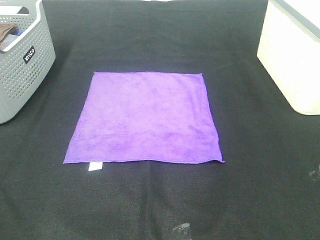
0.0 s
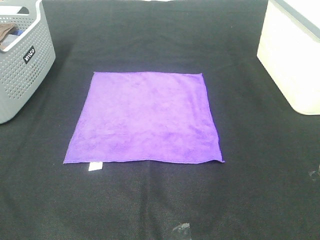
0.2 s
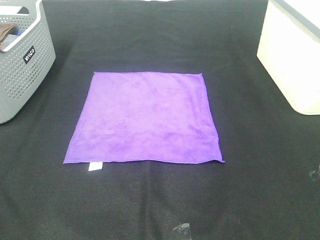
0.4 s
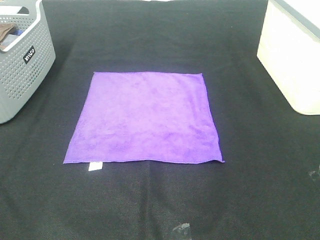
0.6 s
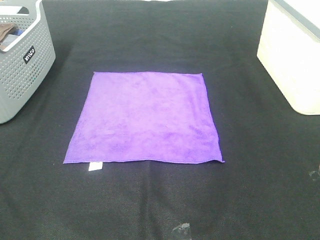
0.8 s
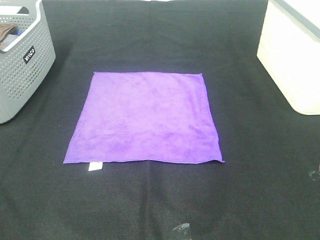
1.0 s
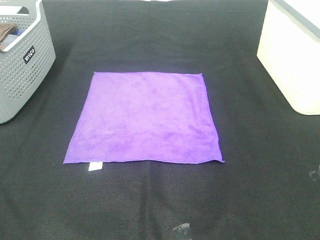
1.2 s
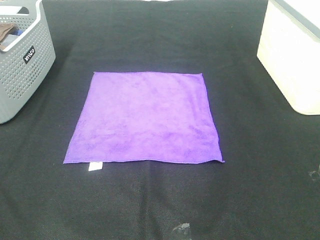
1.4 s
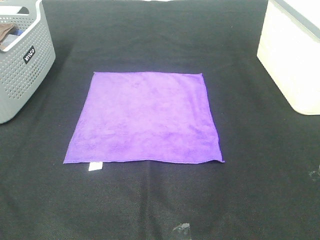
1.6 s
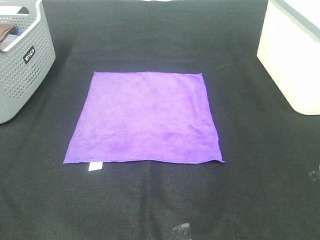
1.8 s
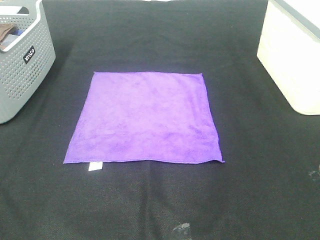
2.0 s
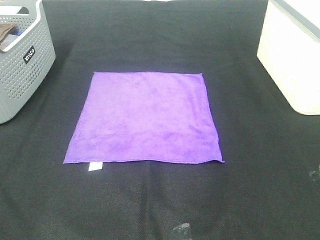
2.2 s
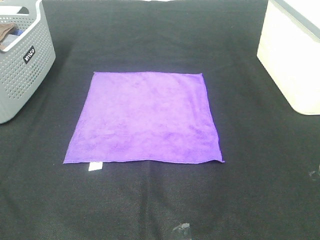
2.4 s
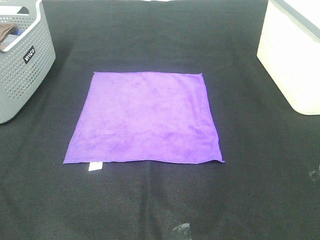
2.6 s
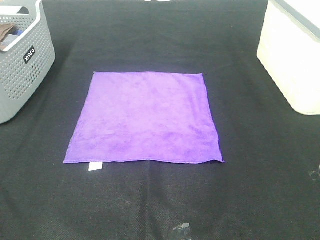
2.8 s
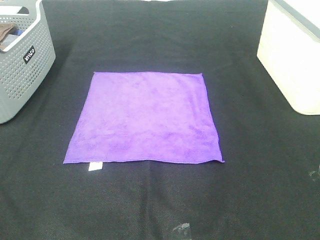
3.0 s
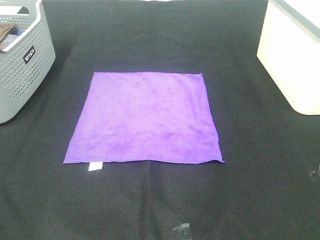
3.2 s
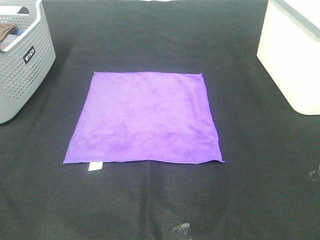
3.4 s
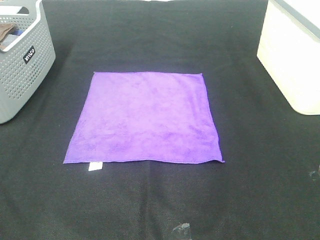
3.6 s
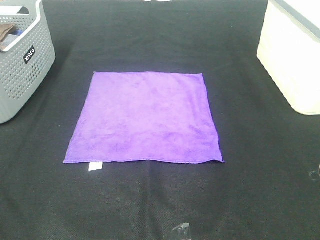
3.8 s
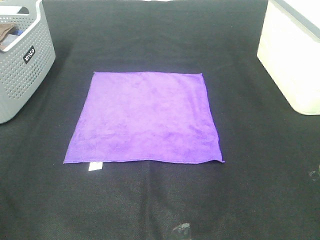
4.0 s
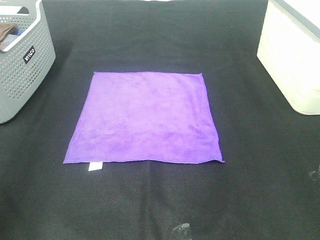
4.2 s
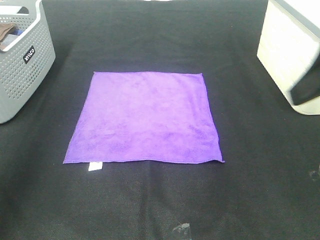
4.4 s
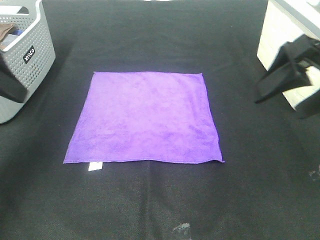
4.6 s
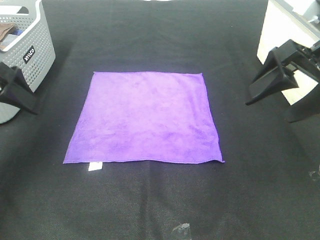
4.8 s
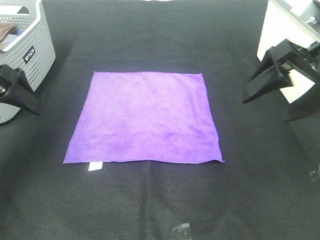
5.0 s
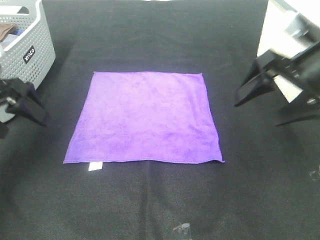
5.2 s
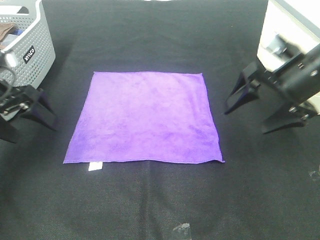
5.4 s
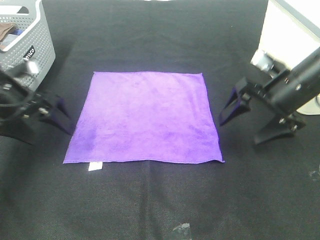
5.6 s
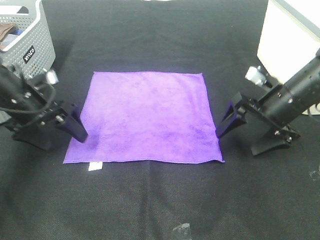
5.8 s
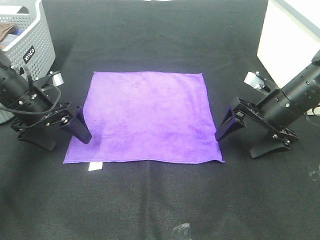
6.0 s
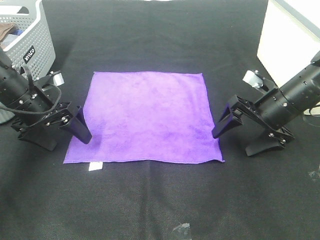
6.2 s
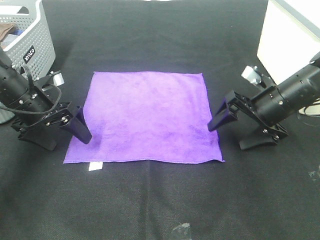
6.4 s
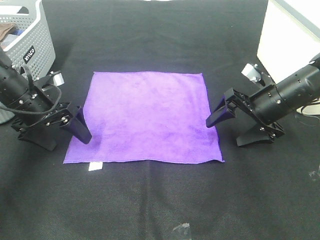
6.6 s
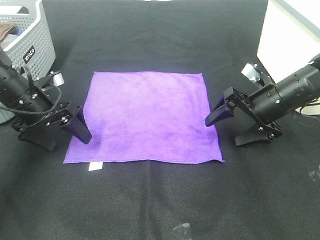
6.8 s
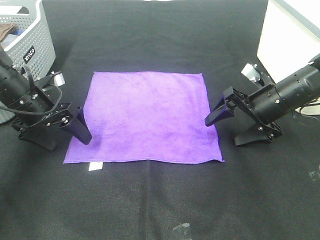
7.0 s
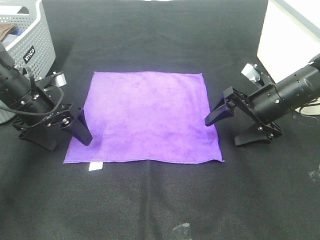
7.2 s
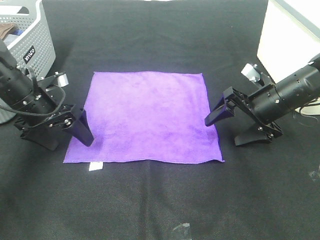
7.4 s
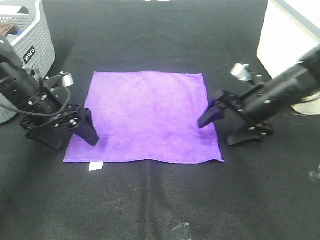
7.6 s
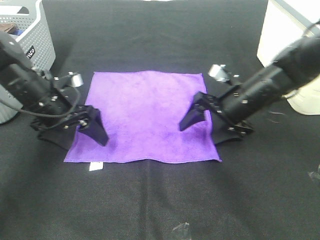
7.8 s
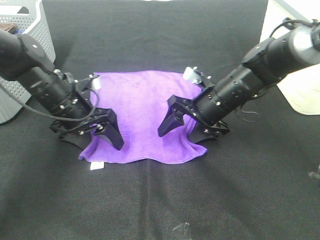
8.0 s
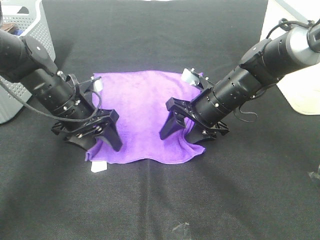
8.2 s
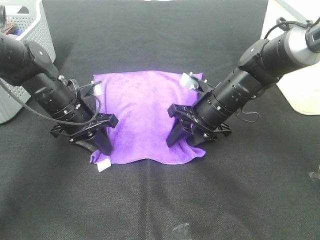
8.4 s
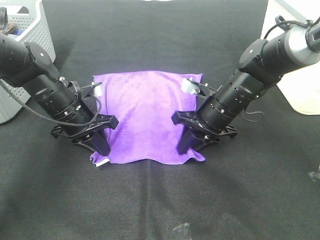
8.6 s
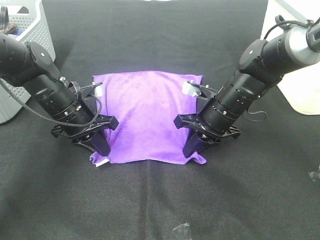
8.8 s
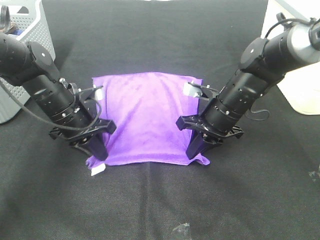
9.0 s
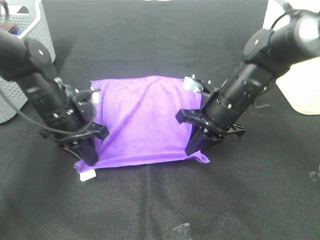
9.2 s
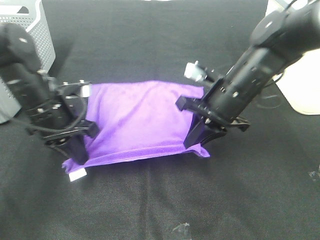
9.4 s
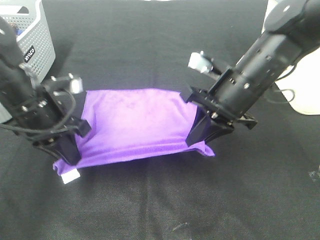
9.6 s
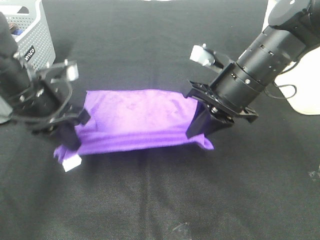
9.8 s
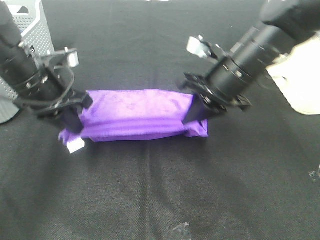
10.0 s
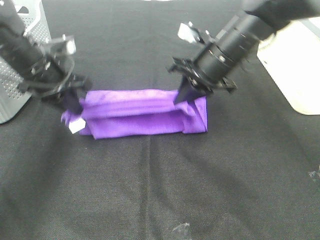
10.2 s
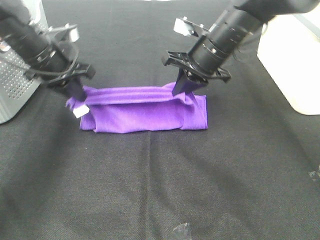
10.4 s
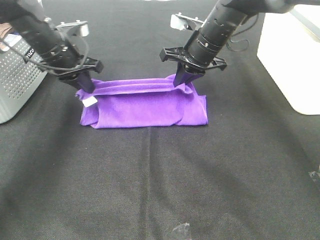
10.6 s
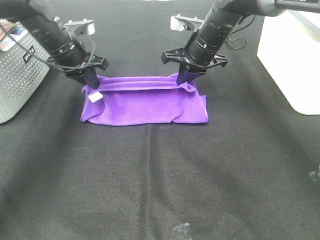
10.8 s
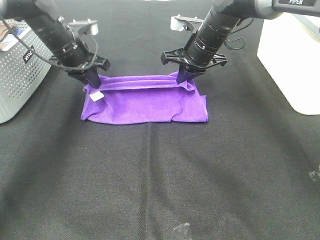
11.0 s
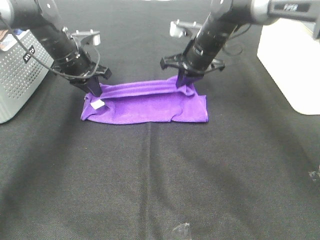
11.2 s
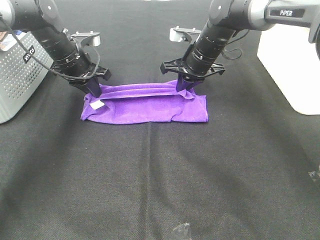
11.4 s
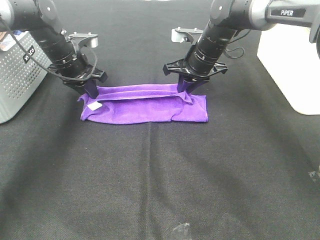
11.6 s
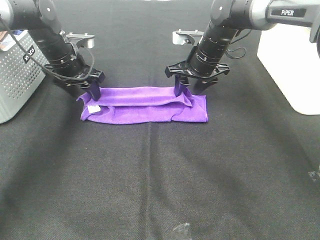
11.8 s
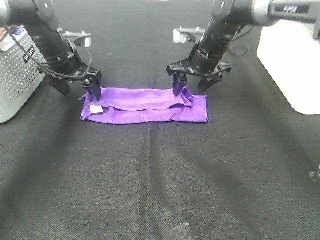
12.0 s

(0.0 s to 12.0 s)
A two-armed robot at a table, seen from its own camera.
Task of the whole recording: Fold towels.
Step, 0.0 s - 8.8 s: Left hand: grab the bottom left corner of purple towel.
Step, 0.0 s - 8.8 s: Right hand: grab the bottom right corner of purple towel.
Step, 9.0 s - 11.2 s: Left hand: fold the purple towel up.
Step, 9.0 s - 11.2 s: Right hand: fold the purple towel up.
0.0 s - 3.0 s: Both grippers stay put.
3.0 s - 4.4 s: The two grippers go some 20 cm forward.
4.4 s - 6.0 s: Both grippers move downward and forward, about 25 cm.
6.0 s - 7.6 s: There are only small adjustments of the grippers.
7.6 s - 9.0 s: The left gripper goes some 5 cm to the right, and closes its fingers, while the right gripper goes approximately 5 cm to the left, and closes up.
9.0 s - 10.4 s: The grippers both shift upward and forward by some 10 cm.
10.4 s - 12.0 s: The left gripper shifts approximately 5 cm forward, and opens up. The right gripper ends up about 5 cm from where it was, and opens up.

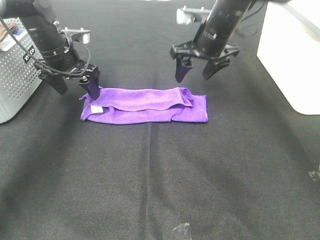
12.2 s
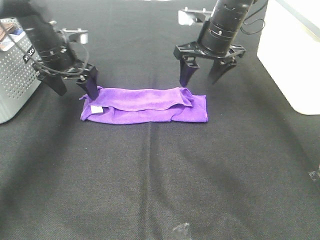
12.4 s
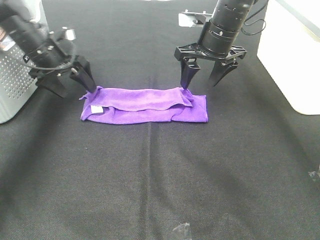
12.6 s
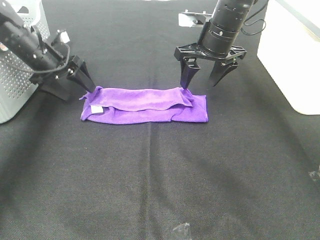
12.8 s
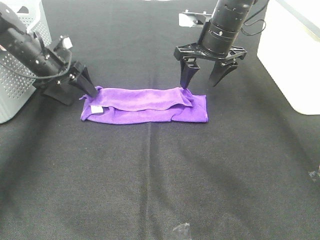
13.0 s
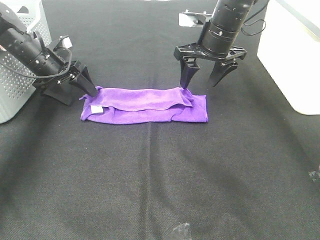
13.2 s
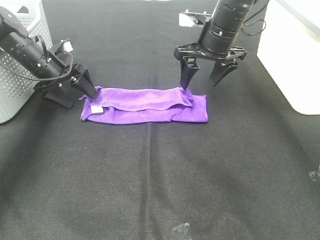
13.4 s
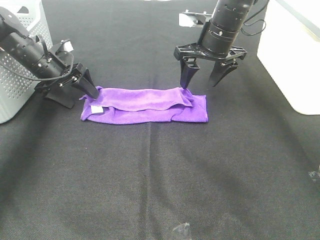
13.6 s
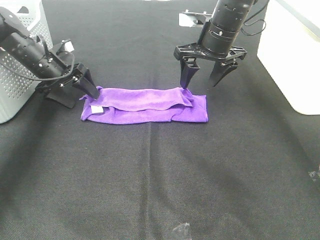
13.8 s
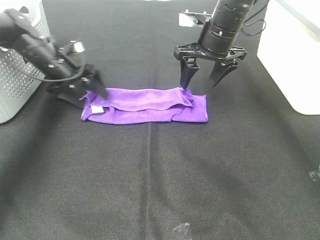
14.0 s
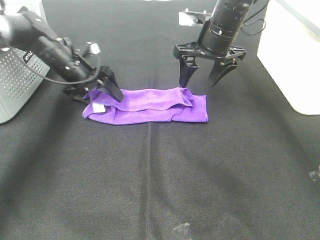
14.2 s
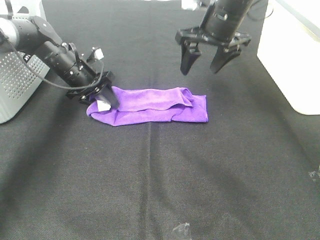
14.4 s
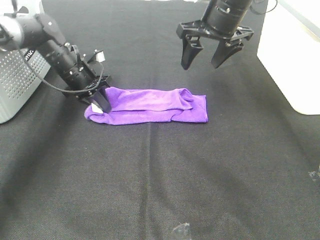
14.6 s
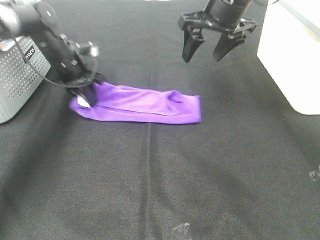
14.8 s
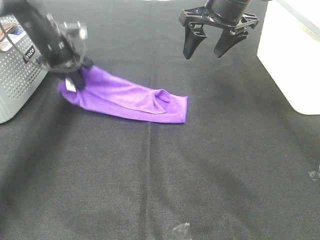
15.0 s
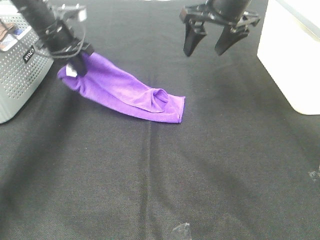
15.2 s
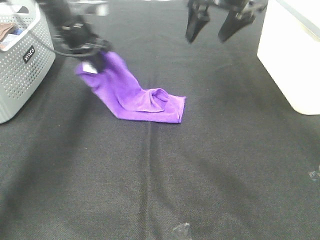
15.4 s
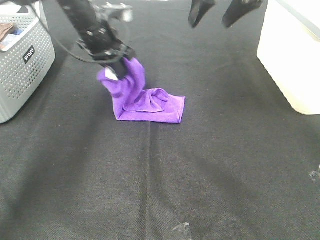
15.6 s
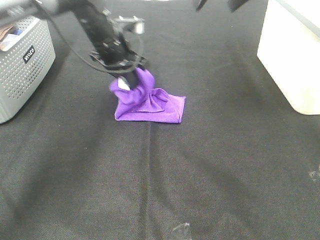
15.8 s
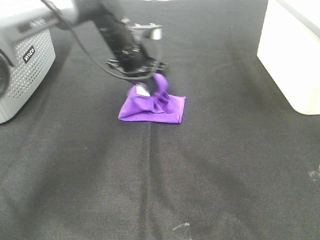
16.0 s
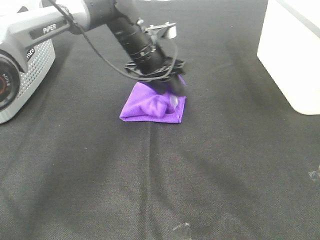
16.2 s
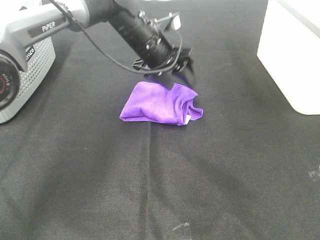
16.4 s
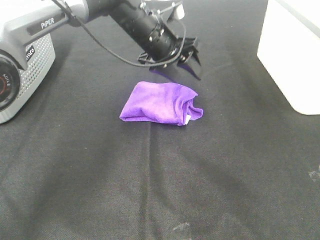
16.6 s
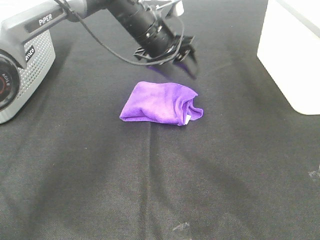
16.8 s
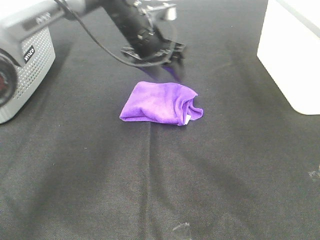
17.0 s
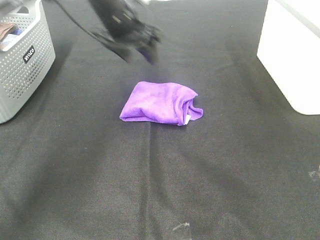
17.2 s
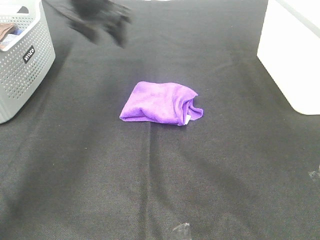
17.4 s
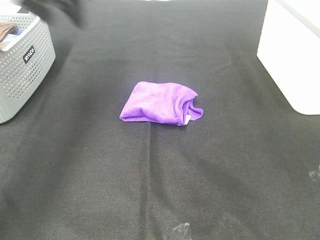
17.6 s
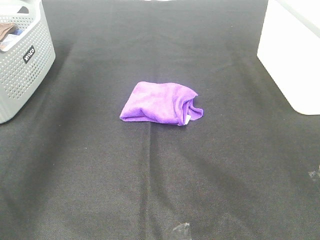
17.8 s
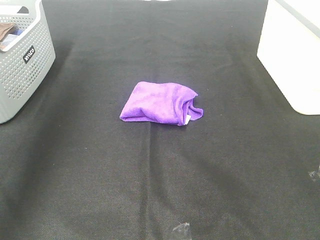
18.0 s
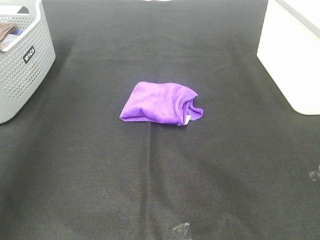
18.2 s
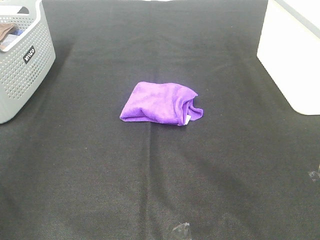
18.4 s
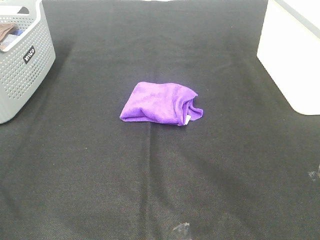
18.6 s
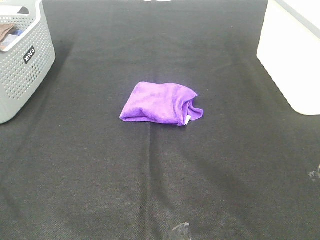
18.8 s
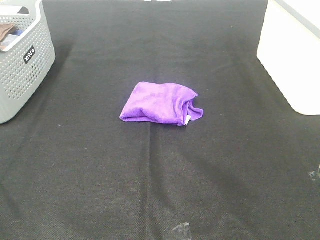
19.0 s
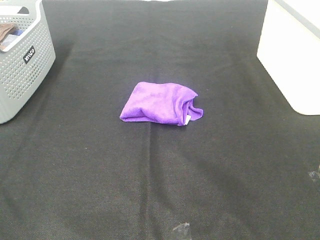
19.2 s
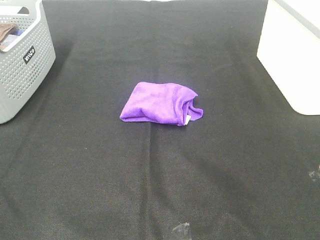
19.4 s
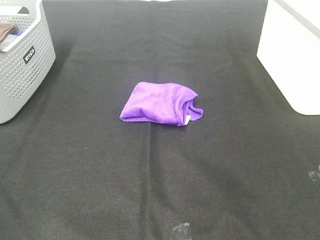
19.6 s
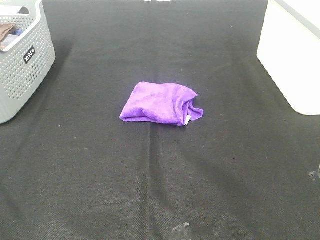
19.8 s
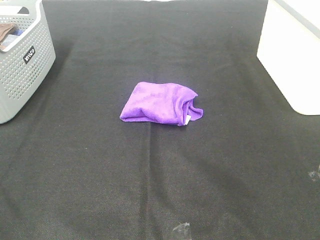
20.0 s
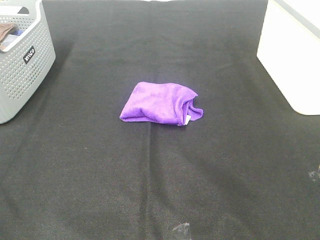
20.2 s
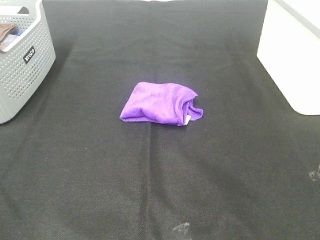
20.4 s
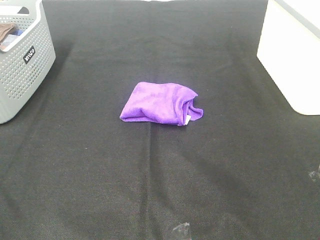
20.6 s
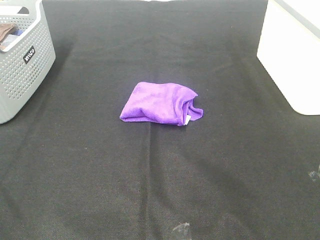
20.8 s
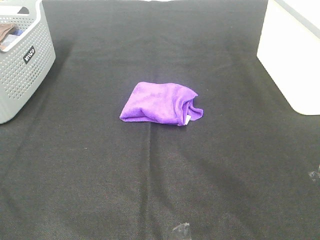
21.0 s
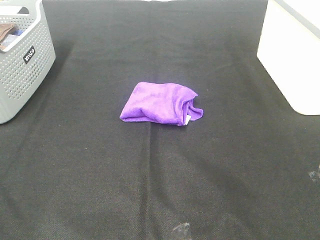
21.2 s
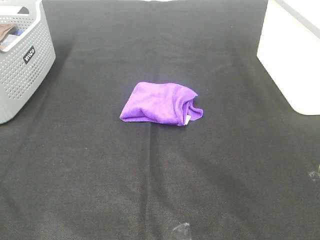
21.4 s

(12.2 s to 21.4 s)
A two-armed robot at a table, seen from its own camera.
Task of the whole recording: Fold towels.
Step, 12.2 s - 16.0 s: Left hand: fold the purple towel from left to right.
12.2 s - 13.8 s: The left gripper shifts approximately 5 cm downward.
13.8 s - 15.2 s: Both grippers travel together upward, about 10 cm. The left gripper closes.
15.2 s - 16.8 s: The left gripper travels to the right by approximately 20 cm, and opens, while the right gripper is displaced upward and backward by about 15 cm.
16.8 s - 18.4 s: The right gripper goes approximately 35 cm backward; the left gripper is displaced backward, to the left and upward by approximately 50 cm.

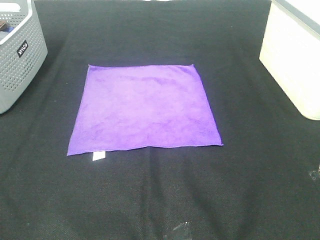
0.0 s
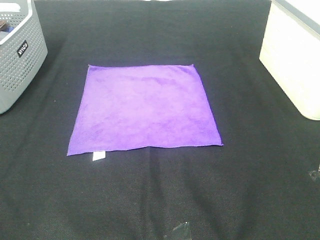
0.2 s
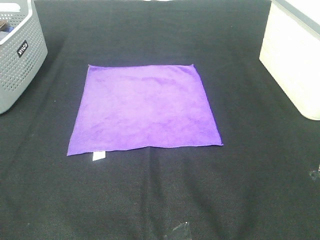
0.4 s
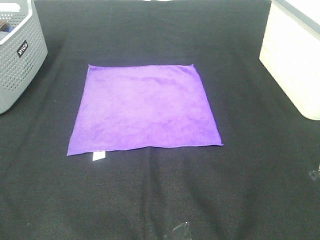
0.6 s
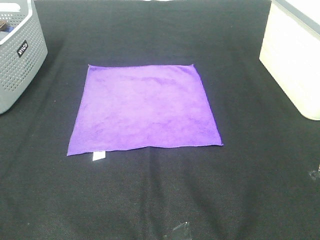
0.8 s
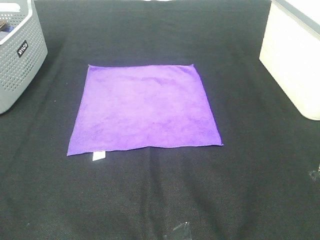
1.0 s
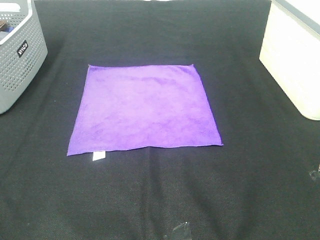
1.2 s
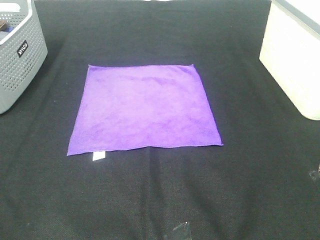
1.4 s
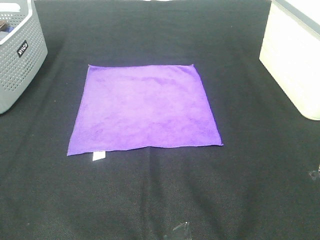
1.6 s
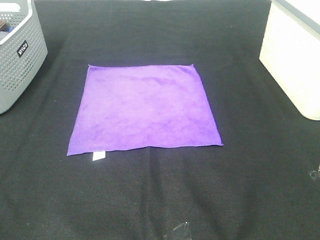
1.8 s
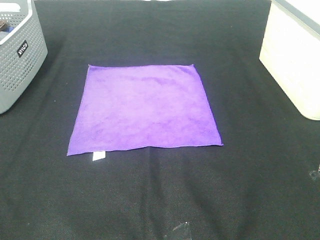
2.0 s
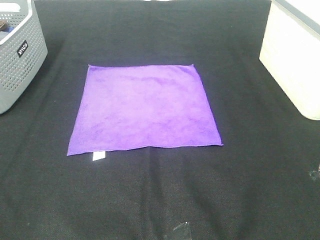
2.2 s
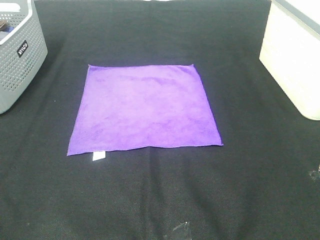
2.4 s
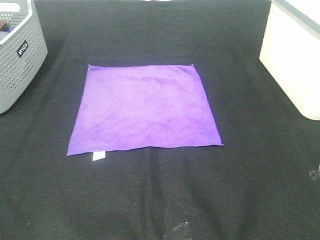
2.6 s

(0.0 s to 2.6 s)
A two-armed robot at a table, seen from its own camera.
Task of the whole recording: Fold towels.
0.0 s - 2.6 s: Both grippers stay about where they are.
